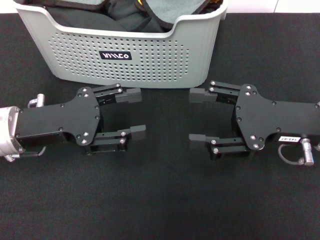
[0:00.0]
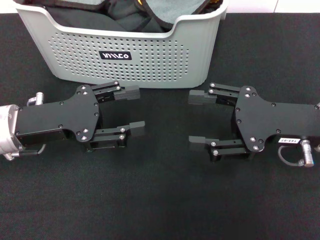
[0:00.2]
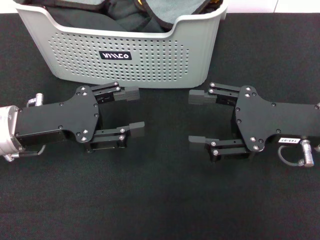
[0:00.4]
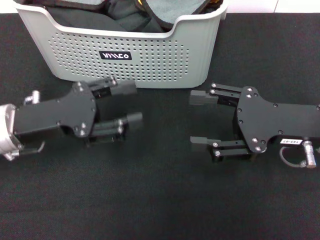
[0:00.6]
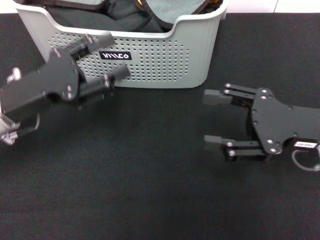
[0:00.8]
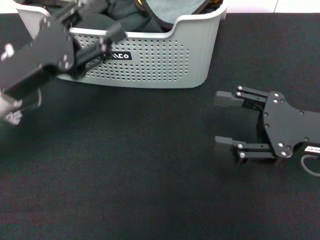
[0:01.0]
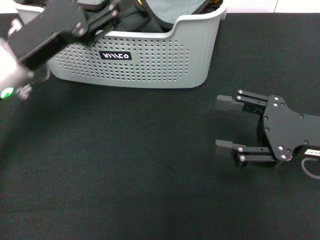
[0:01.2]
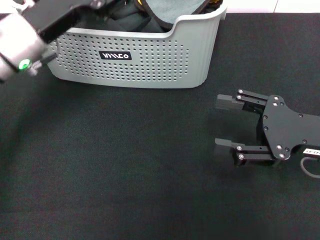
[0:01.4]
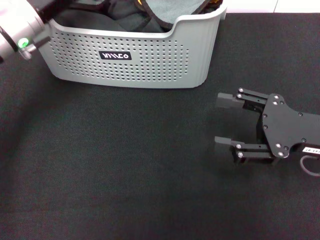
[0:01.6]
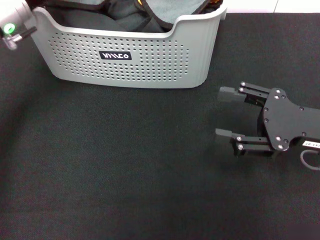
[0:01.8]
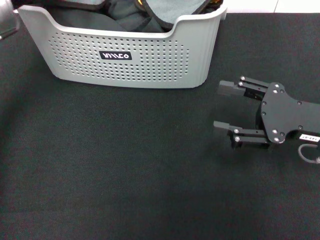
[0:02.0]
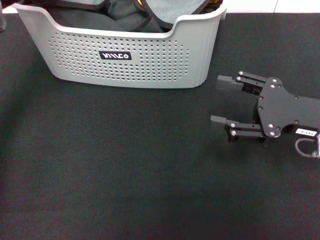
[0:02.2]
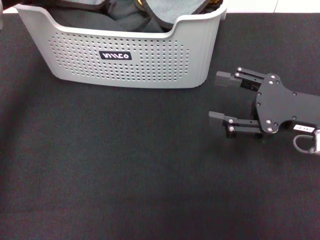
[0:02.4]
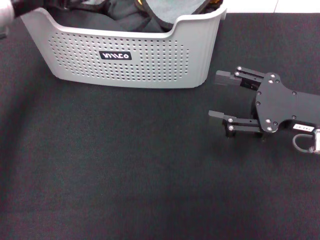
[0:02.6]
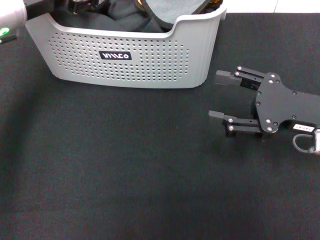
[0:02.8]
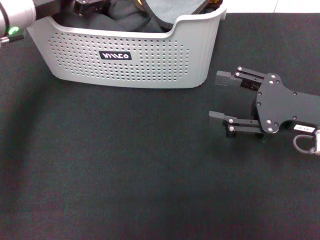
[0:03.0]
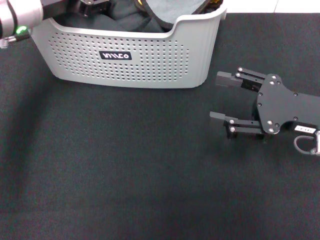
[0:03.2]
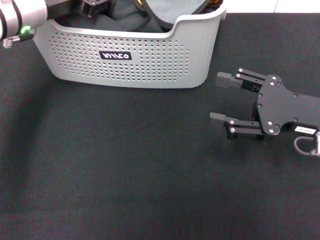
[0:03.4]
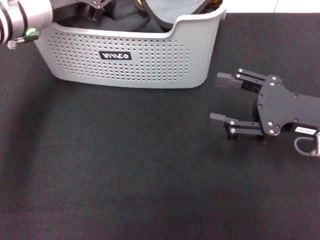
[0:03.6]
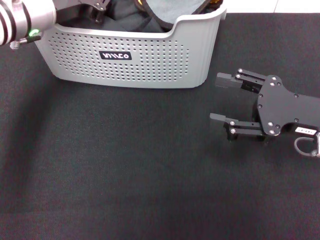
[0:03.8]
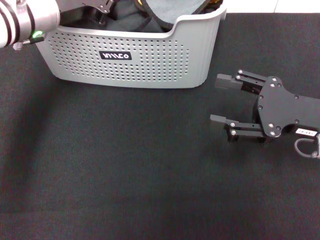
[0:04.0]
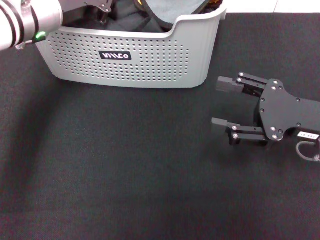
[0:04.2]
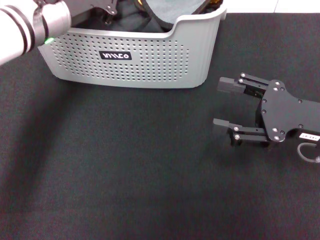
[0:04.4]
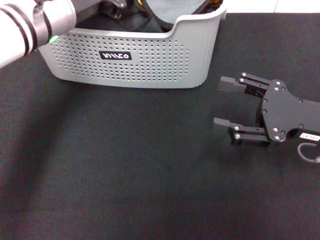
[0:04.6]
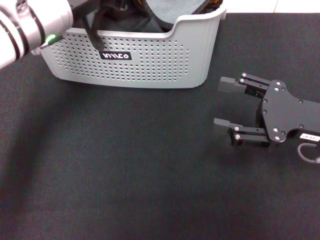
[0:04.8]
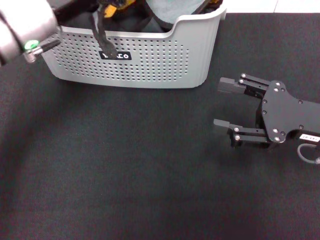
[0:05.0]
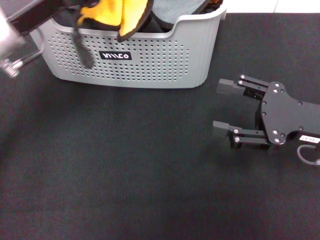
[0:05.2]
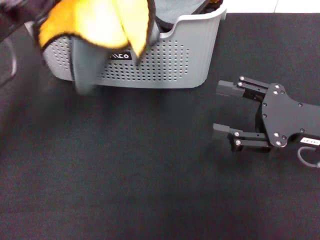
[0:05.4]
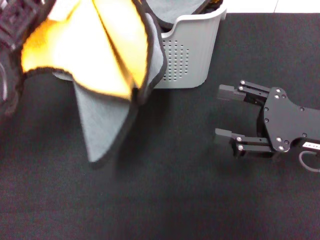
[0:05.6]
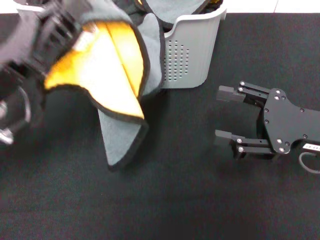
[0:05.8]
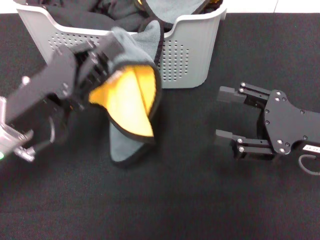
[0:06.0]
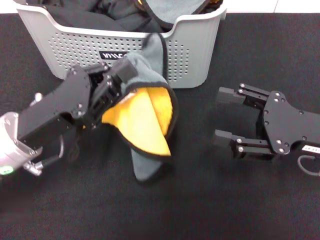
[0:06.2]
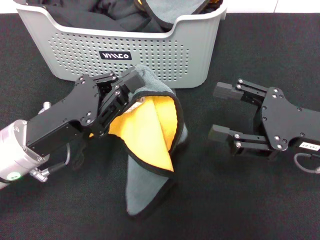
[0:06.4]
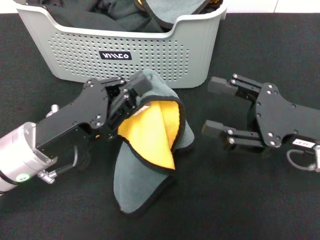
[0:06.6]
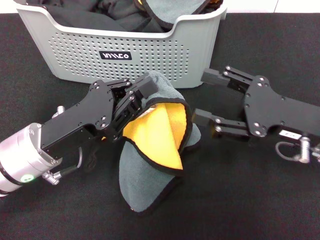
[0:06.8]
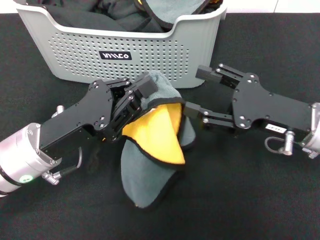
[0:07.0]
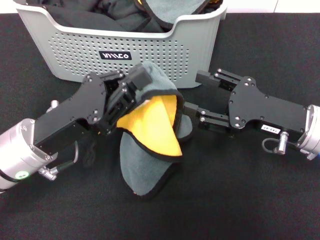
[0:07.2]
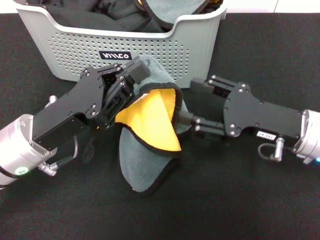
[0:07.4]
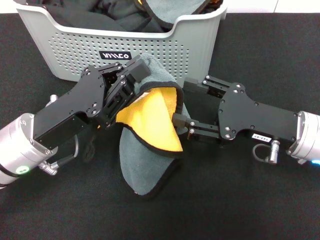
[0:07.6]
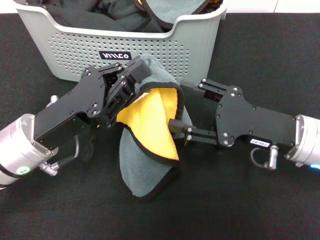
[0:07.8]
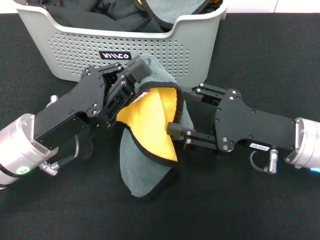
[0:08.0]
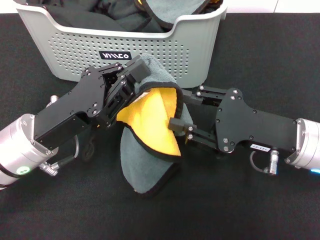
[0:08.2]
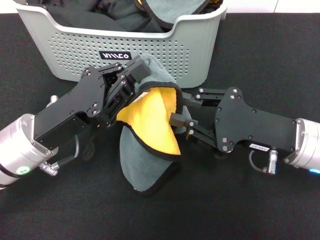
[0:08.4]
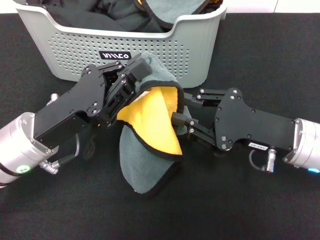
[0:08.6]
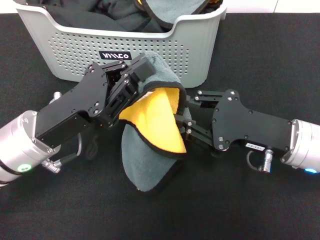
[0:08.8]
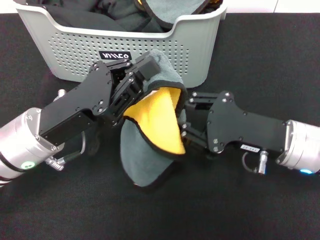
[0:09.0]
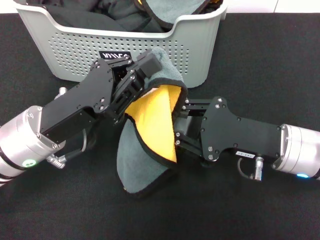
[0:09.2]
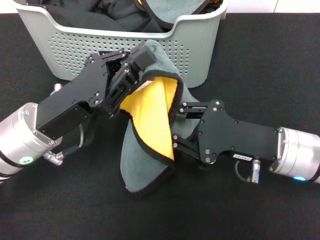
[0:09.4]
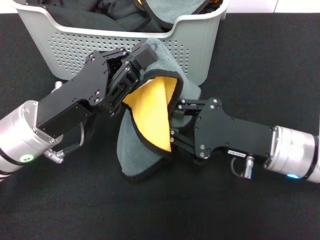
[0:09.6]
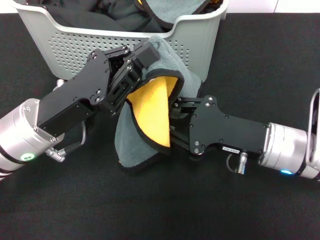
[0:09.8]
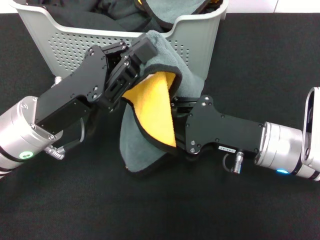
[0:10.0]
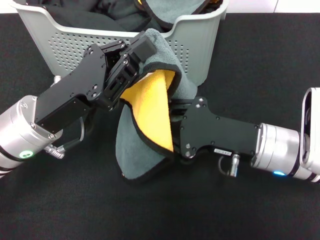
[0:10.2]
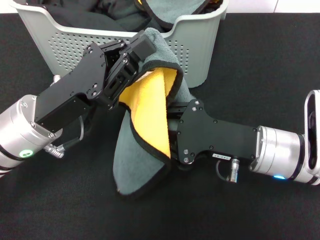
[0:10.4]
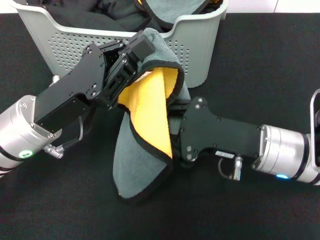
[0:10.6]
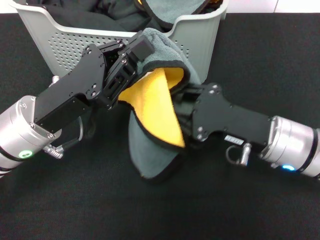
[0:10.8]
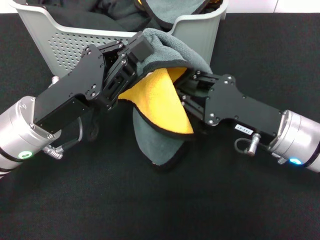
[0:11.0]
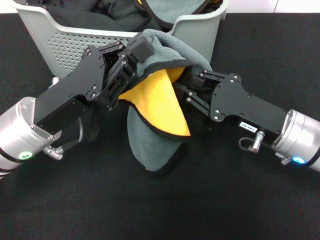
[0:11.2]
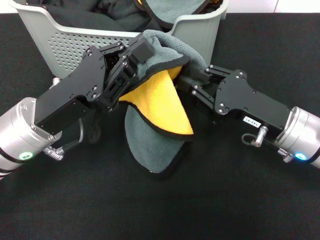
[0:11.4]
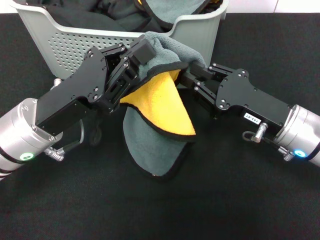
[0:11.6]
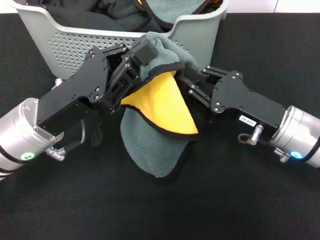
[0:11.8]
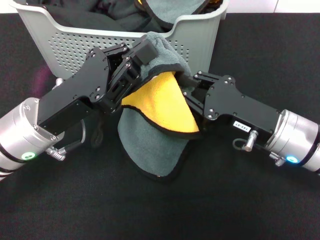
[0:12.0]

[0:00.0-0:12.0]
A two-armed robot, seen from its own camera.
Task of the whole recording: pick up the towel from the storage box and lay it flat on the black tablecloth.
Step, 0:00.0 to 0:04.6: Pick up a towel with the left gripper.
0:00.0 to 0:01.6: The left gripper moves forward and upward, approximately 10 cm.
0:03.0 to 0:04.4: The left gripper closes its fingers.
0:04.4 to 0:06.0: The left gripper shifts approximately 15 cm backward and downward.
0:06.0 to 0:07.6: The right gripper ends up approximately 5 cm from where it was.
0:07.6 to 0:09.0: The right gripper closes.

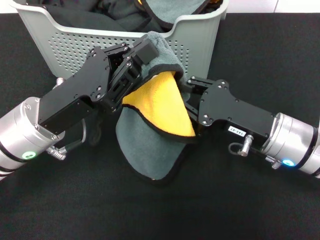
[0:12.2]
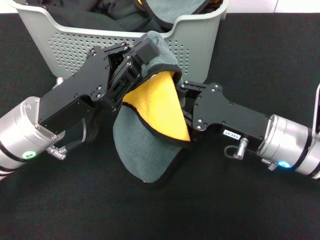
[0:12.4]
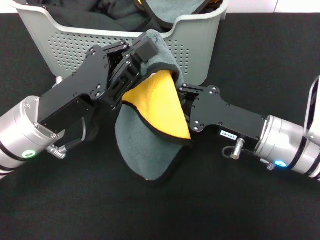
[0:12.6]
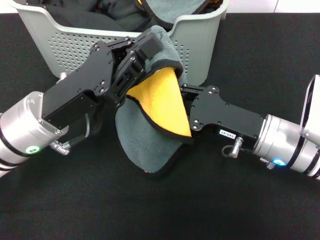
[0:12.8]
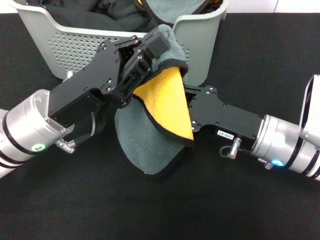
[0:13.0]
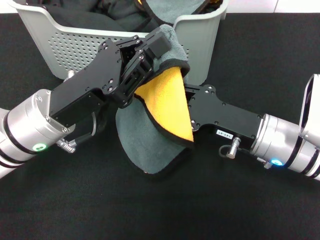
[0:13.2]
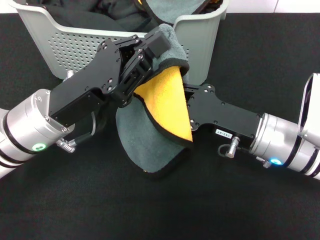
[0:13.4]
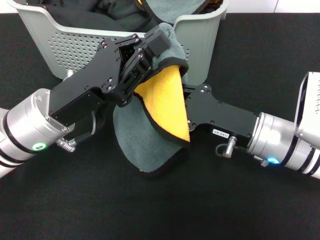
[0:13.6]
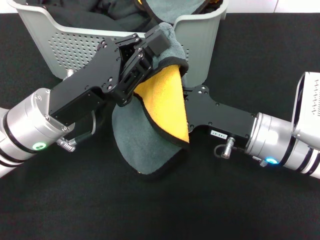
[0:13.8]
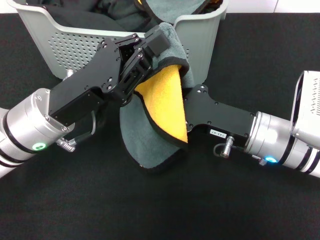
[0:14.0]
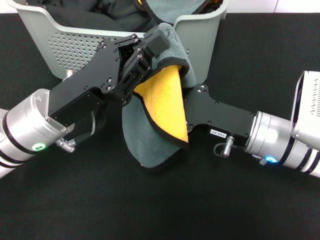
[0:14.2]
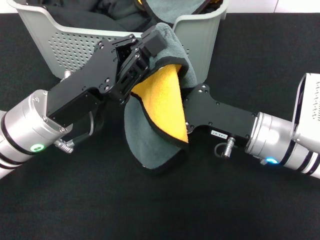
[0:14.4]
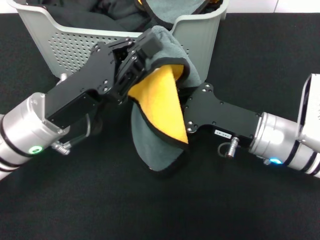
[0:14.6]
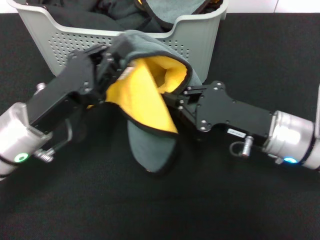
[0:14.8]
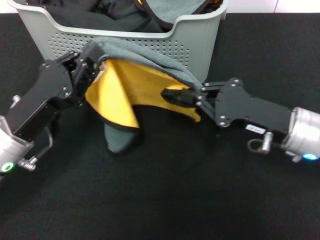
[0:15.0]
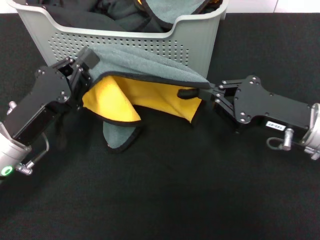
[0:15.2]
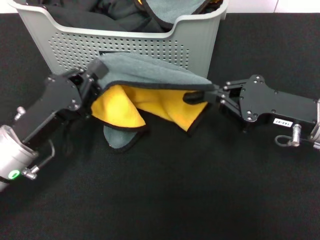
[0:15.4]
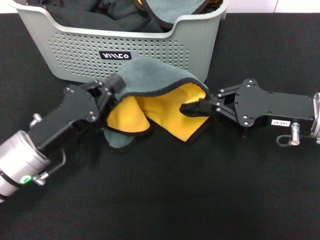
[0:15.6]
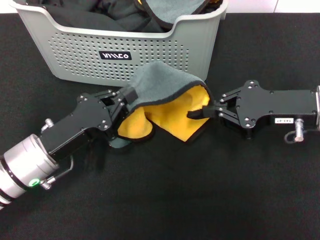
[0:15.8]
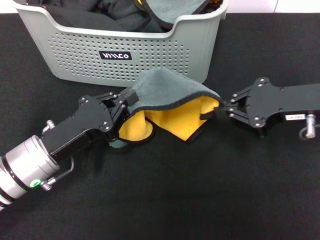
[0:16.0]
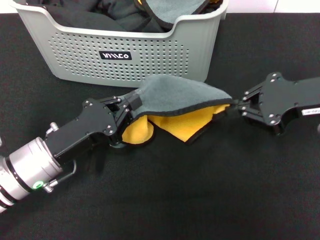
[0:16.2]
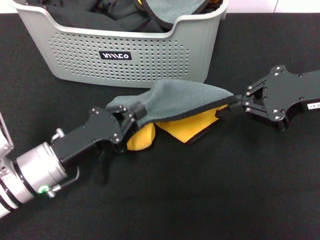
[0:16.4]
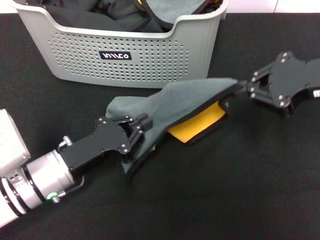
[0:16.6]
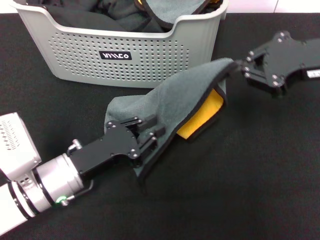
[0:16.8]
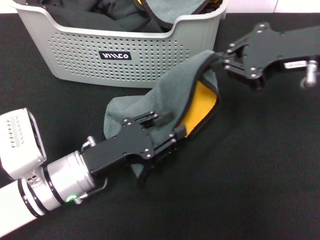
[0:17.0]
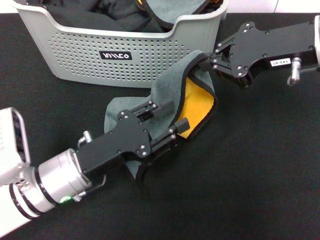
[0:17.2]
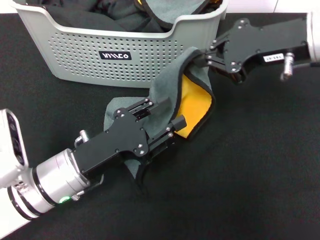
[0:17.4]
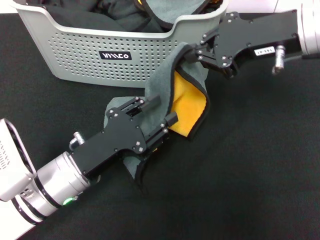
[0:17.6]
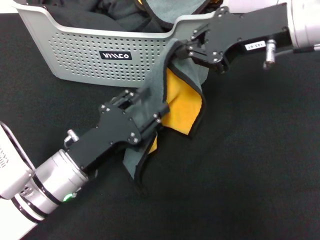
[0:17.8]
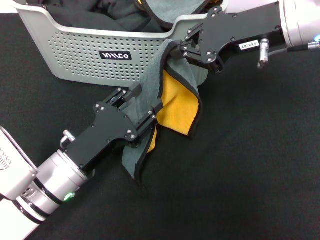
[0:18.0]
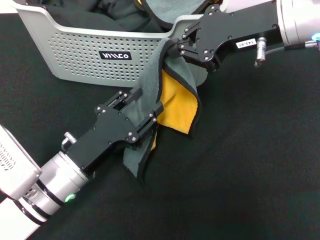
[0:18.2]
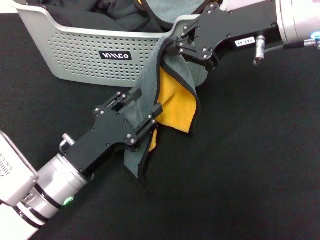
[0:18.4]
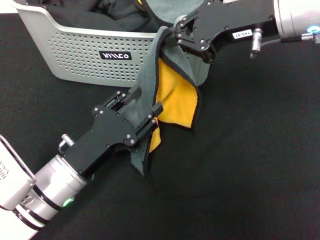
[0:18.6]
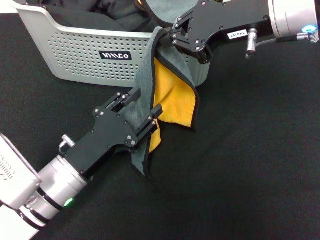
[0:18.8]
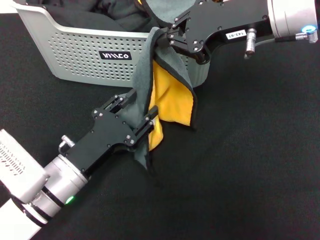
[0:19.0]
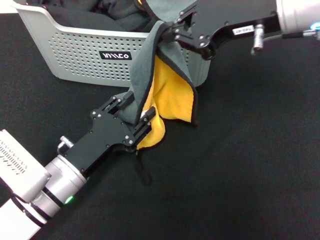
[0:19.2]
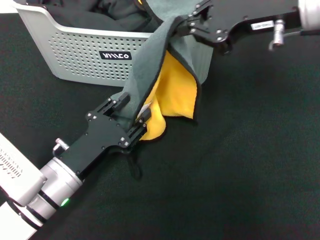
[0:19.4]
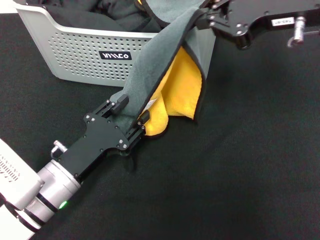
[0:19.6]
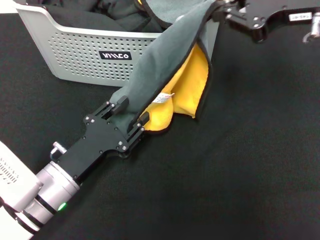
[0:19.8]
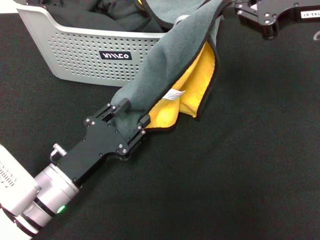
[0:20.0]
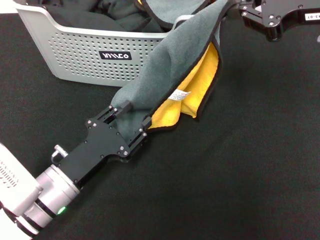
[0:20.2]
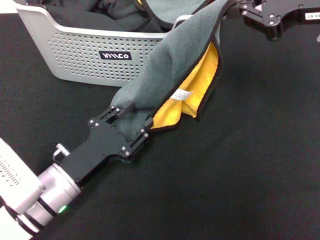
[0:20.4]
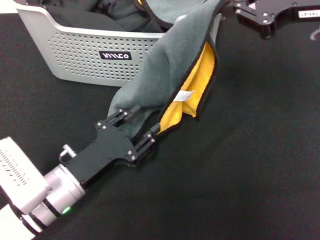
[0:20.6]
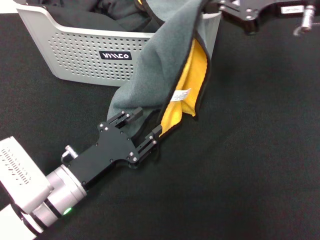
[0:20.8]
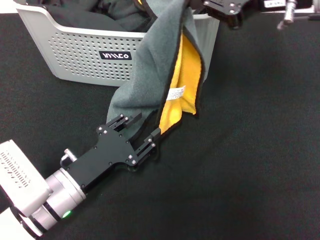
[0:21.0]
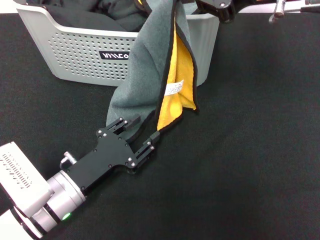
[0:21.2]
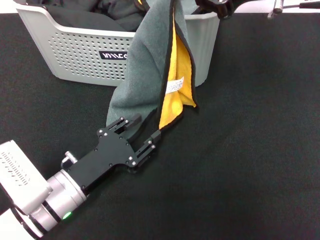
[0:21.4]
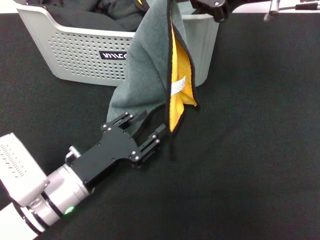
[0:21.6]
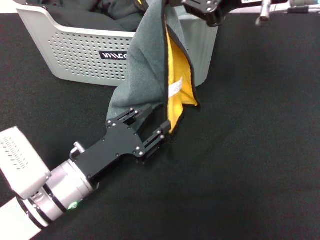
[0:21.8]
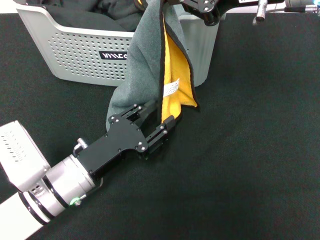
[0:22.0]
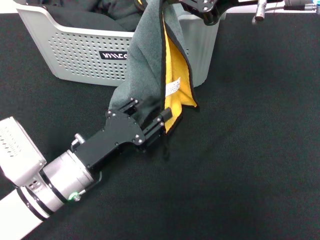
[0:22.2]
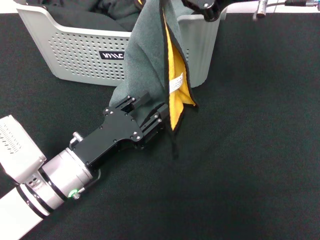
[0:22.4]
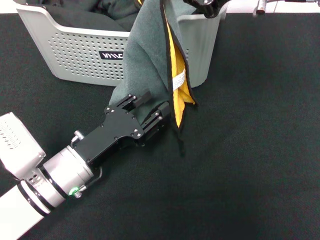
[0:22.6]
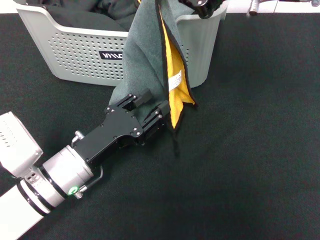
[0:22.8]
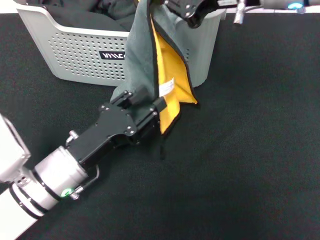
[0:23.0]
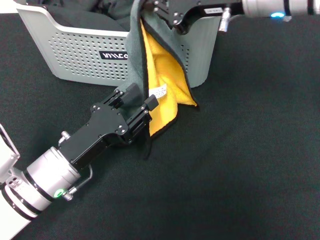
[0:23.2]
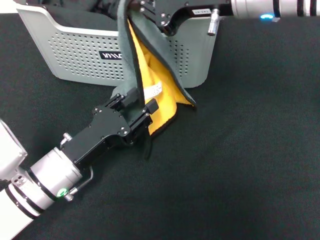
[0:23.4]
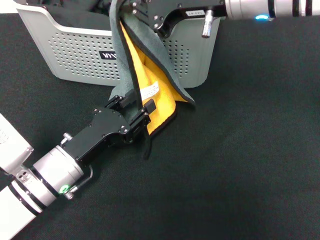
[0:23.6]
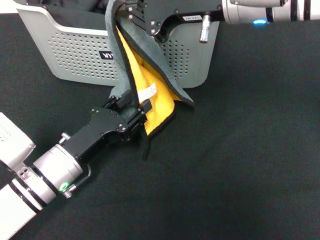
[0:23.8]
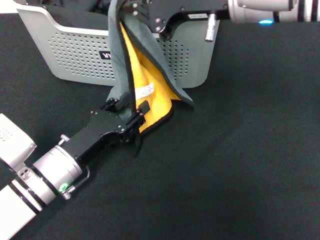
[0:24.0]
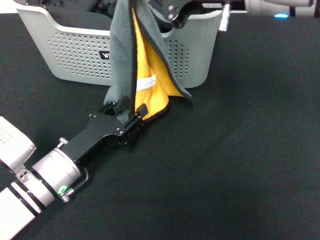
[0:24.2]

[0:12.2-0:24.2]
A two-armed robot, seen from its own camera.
Task of the whole recording: pick up the towel from the storage box and lay it flat on the black tablecloth.
Step, 0:12.2 to 0:14.6: Spread the towel flat with the left gripper.
0:12.2 to 0:13.8: The grippers move only a little.
0:13.8 to 0:15.2: The right gripper travels to the right by about 5 cm. Meanwhile the left gripper goes approximately 5 cm to the left.
0:15.2 to 0:16.6: The right gripper moves upward, some 10 cm, while the left gripper ends up approximately 5 cm from where it was.
0:16.6 to 0:18.2: The right gripper heads to the left, covering some 10 cm, while the left gripper opens.
0:18.2 to 0:19.8: The right gripper shifts about 5 cm to the right.
0:21.2 to 0:22.6: The grippers move only a little.
